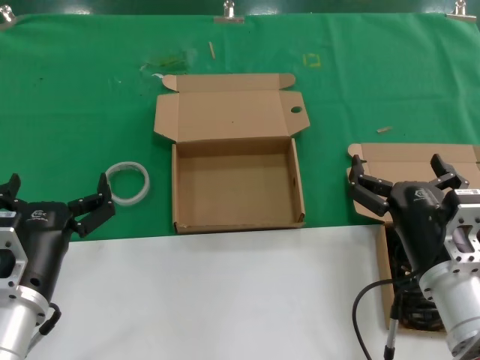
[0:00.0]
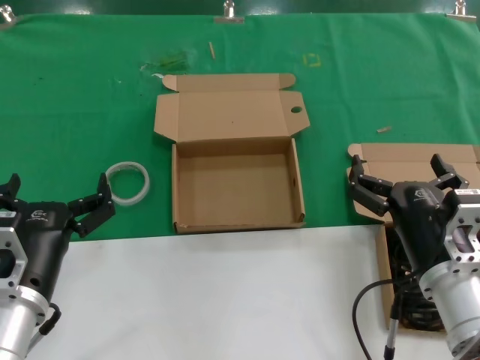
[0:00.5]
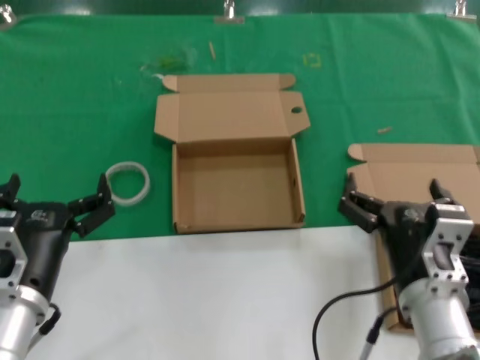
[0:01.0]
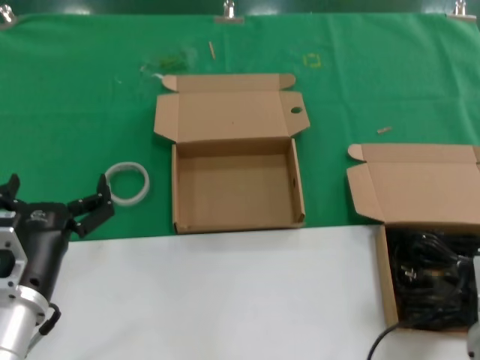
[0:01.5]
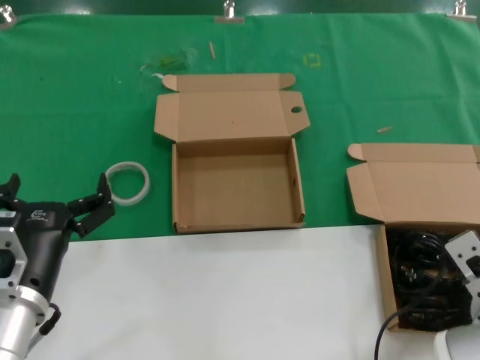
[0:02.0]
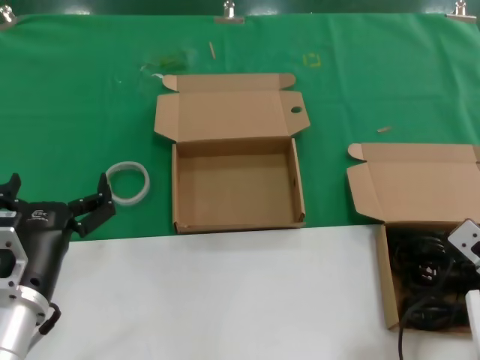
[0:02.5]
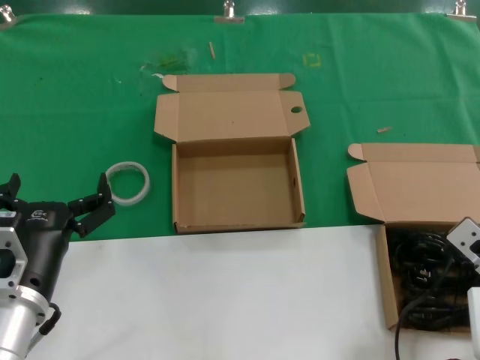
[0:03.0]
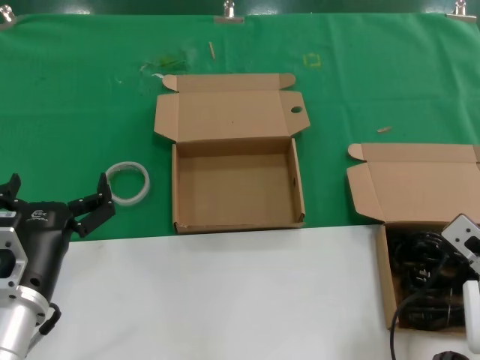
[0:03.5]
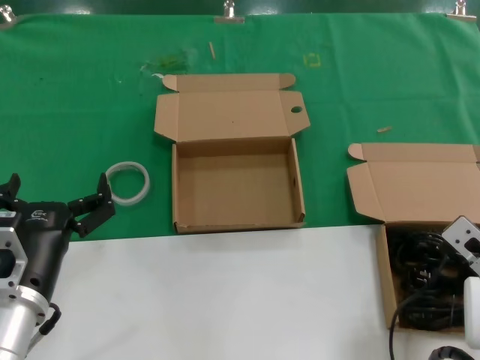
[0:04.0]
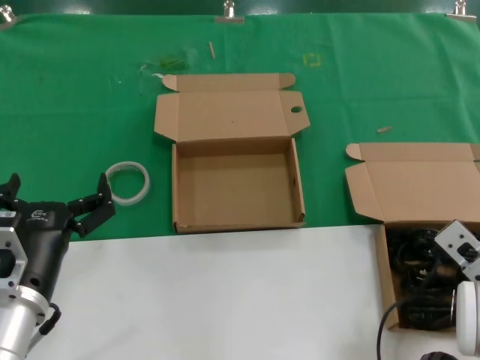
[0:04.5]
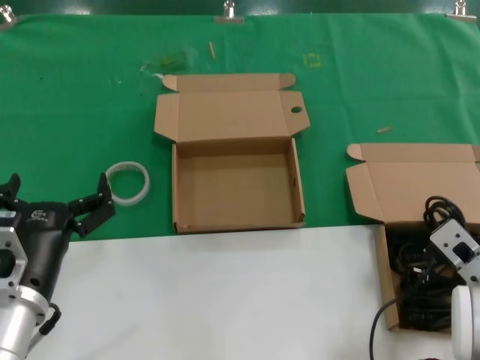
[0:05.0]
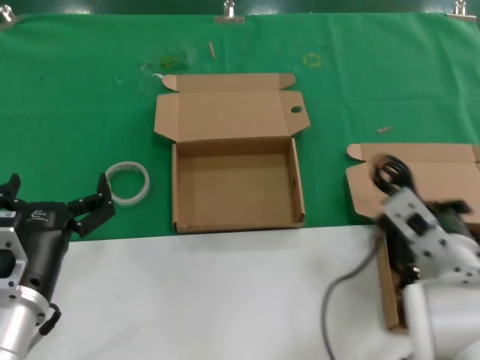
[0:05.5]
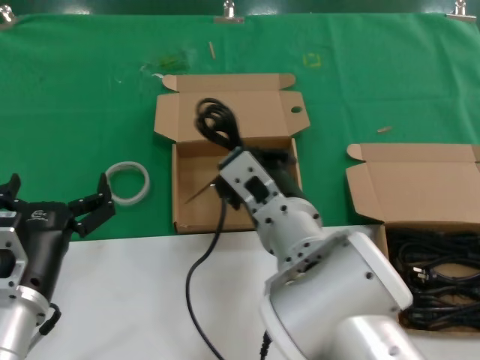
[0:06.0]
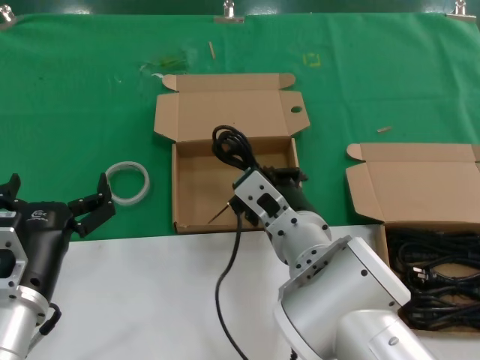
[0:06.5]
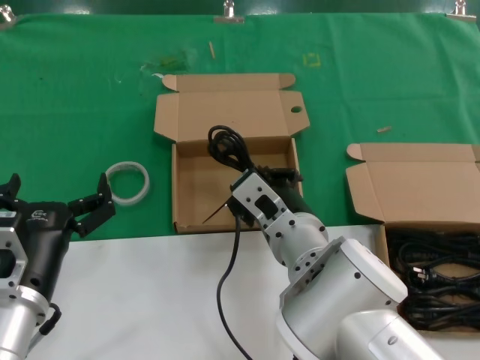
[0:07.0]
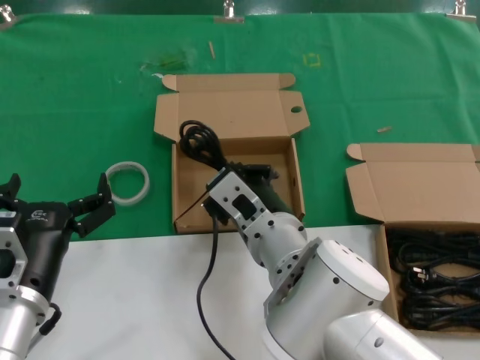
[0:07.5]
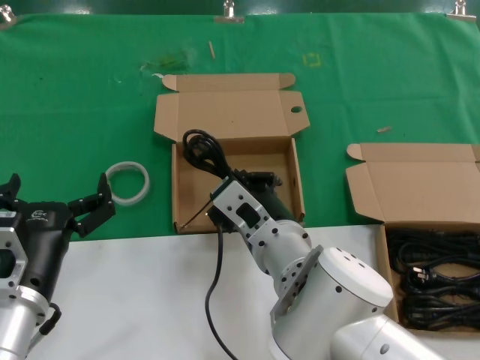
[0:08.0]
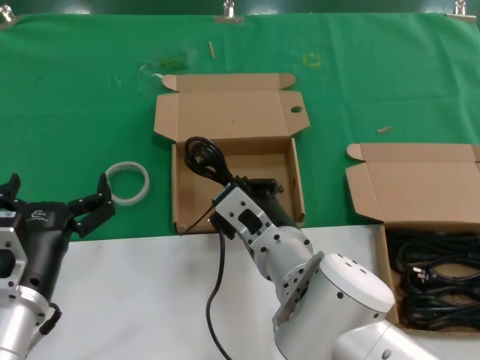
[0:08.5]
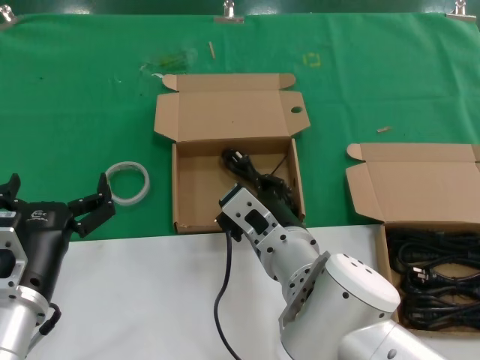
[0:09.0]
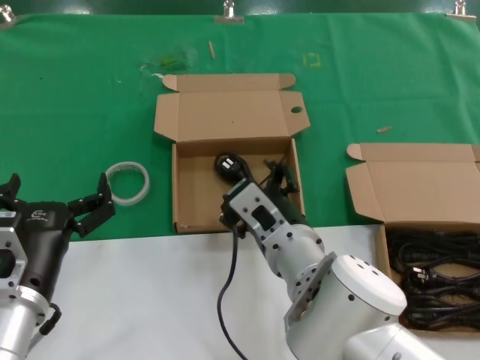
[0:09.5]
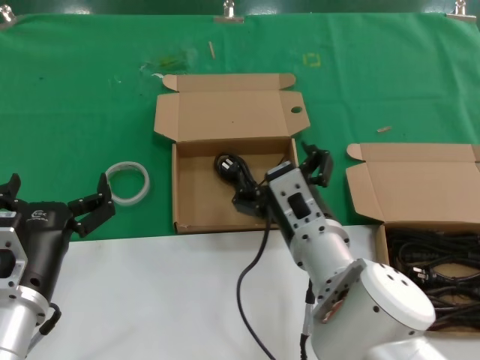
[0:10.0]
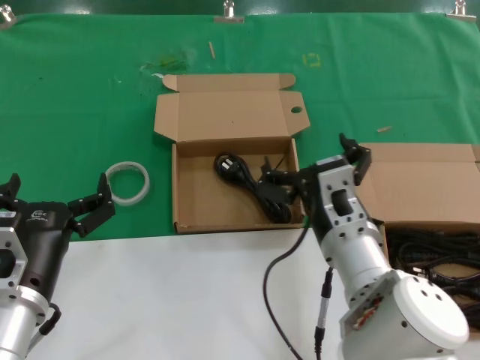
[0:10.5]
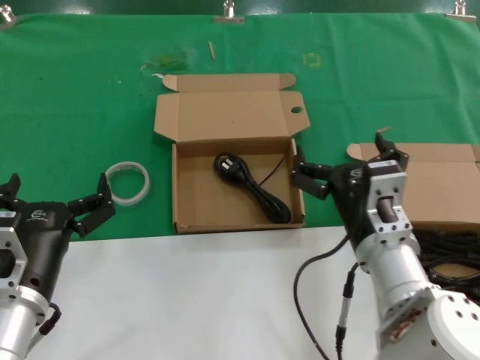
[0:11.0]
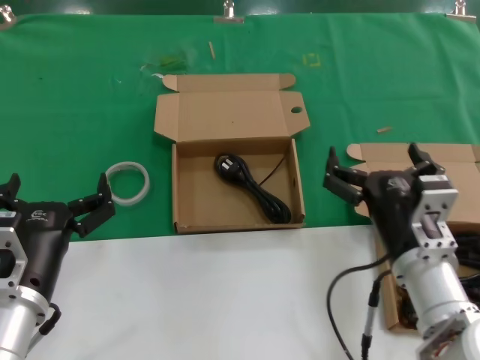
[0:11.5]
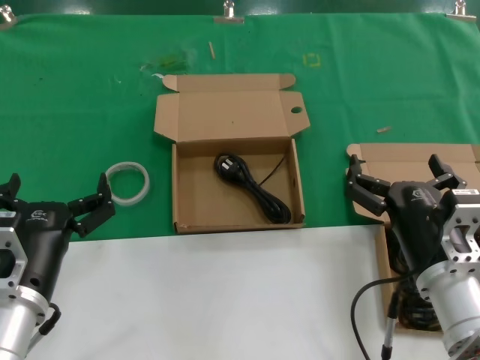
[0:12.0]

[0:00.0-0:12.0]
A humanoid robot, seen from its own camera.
Task of the whole recording: take the parts from the box containing them and put them into an empty box.
Step, 0:00.0 to 0:04.5: Grasp the data cable.
Step, 0:05.5 to 0:09.5: Place the data cable in the another box.
0:02.0 to 0:04.0: The right hand shifts by some 5 cm.
0:04.0 to 0:06.0: The right hand travels to the left by about 25 cm.
0:06.0 to 0:08.0: The hands make only small movements.
0:08.0 to 0:10.0: The hands make only small movements.
0:10.0 to 0:12.0: The right hand is displaced to the right by approximately 15 cm.

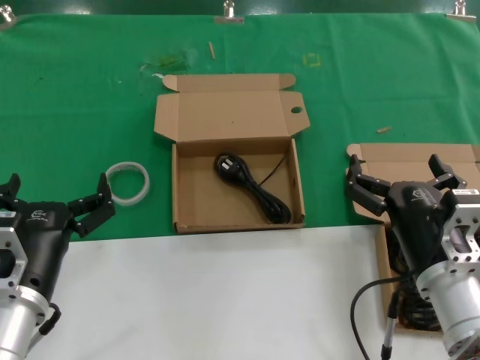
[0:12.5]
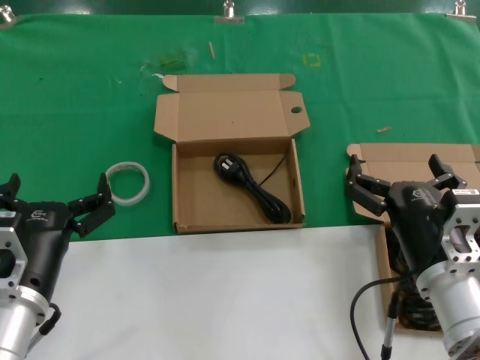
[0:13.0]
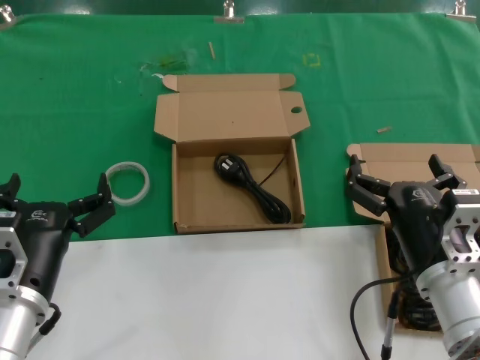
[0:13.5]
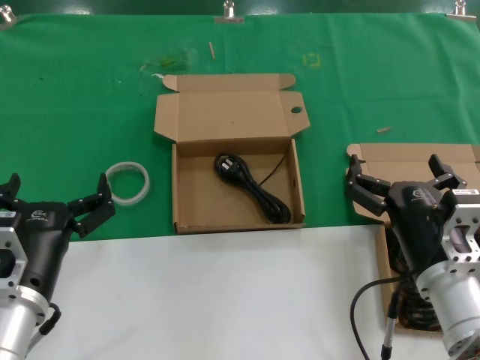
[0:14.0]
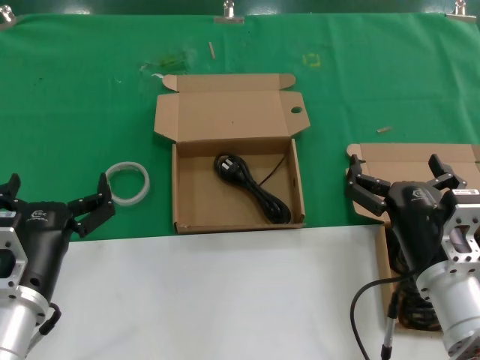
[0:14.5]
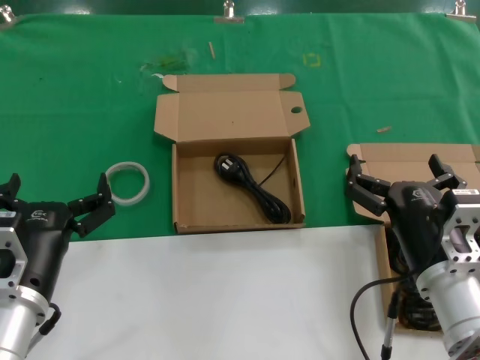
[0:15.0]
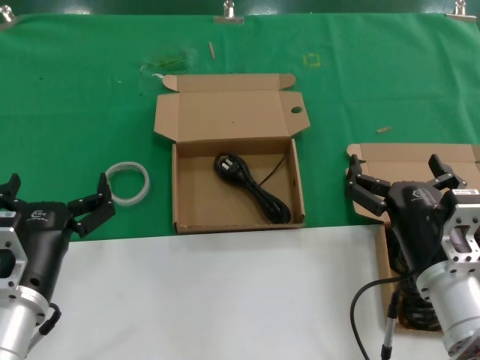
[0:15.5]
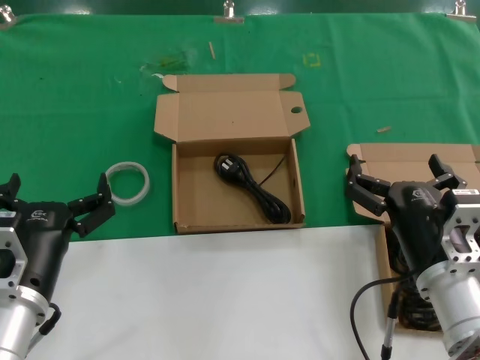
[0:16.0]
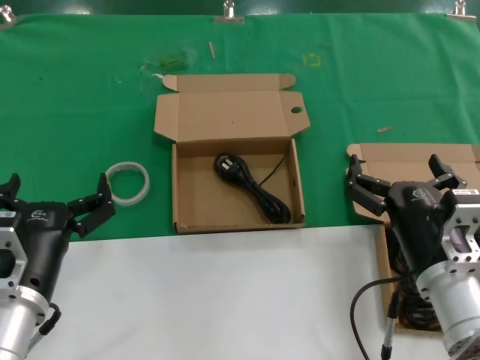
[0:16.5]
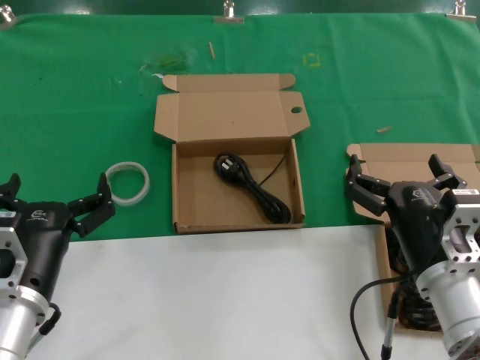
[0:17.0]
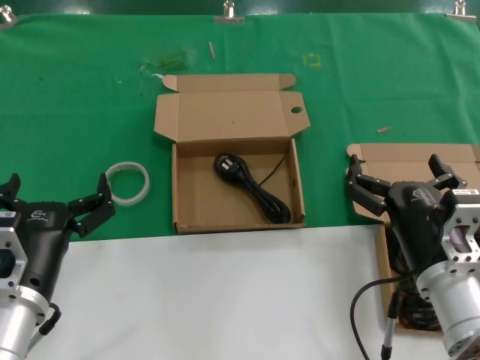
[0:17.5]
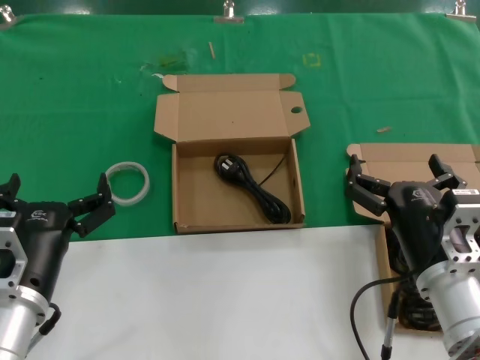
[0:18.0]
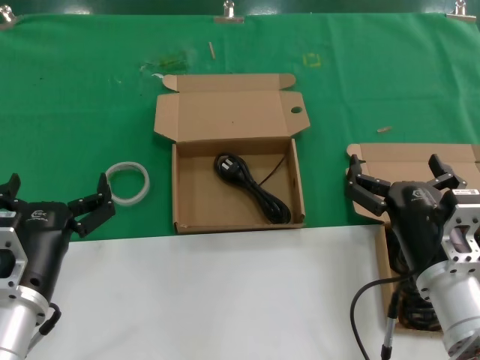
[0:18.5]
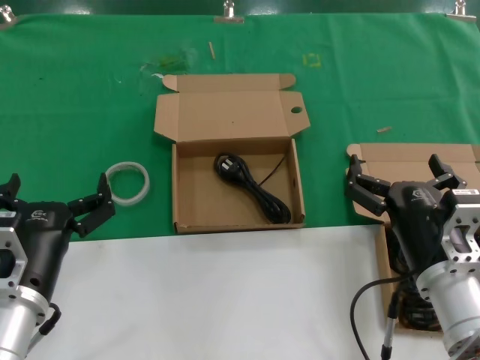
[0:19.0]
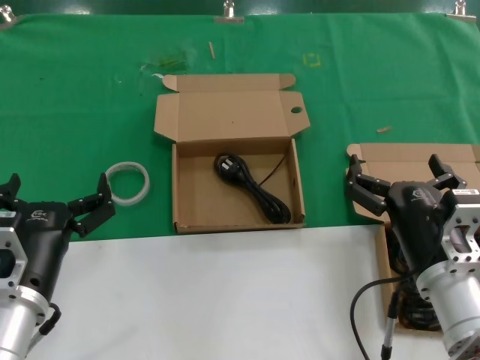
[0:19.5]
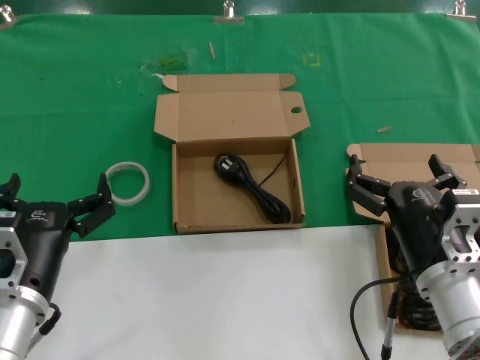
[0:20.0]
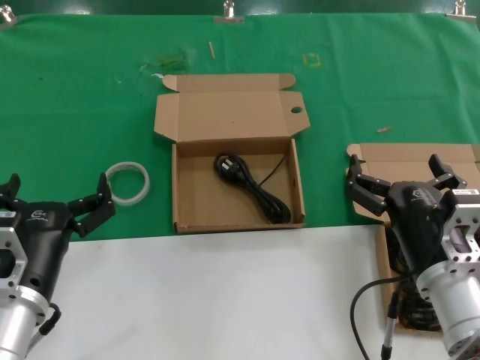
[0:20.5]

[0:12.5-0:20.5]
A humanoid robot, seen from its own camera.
Task of the whole recording: take the parts from the box containing them and put them into an empty box.
0:12.5 to 0:20.5: Neither hand changes place.

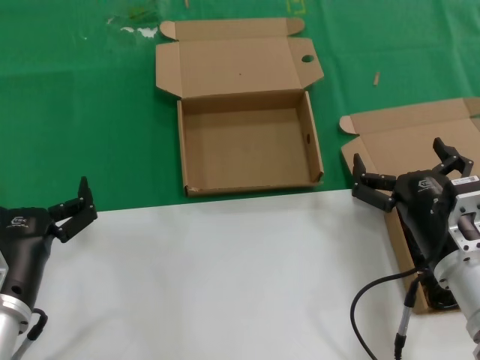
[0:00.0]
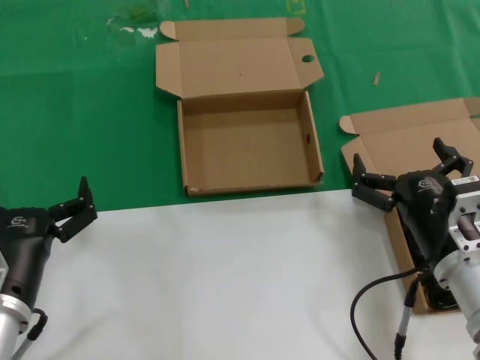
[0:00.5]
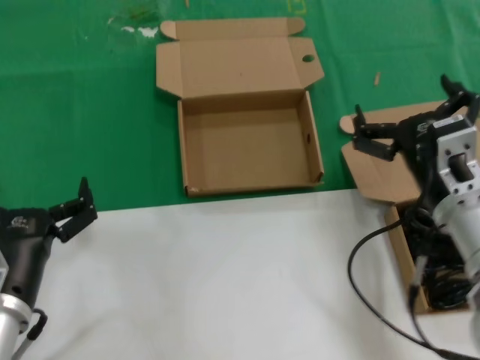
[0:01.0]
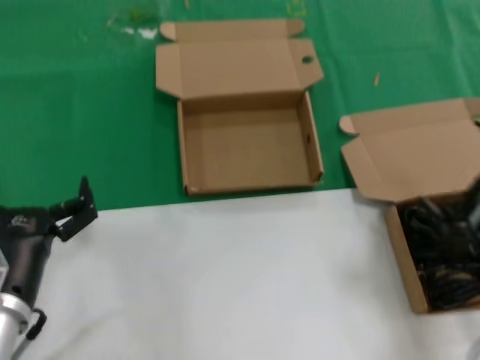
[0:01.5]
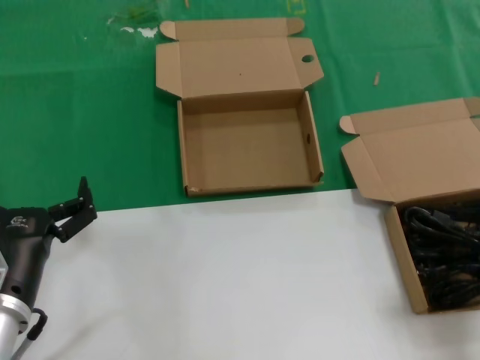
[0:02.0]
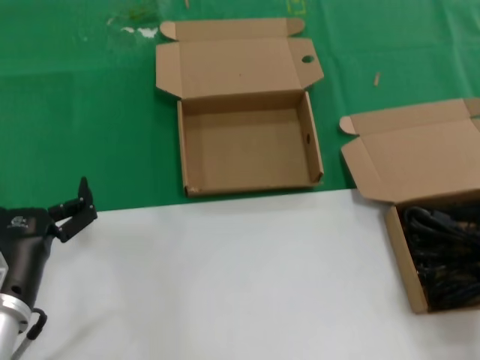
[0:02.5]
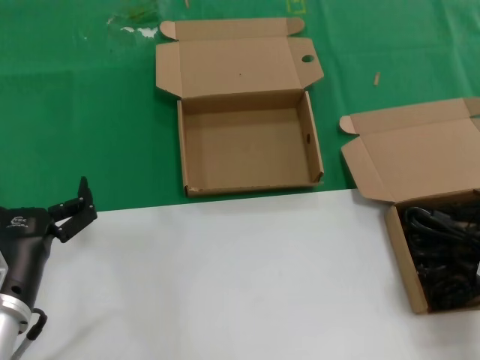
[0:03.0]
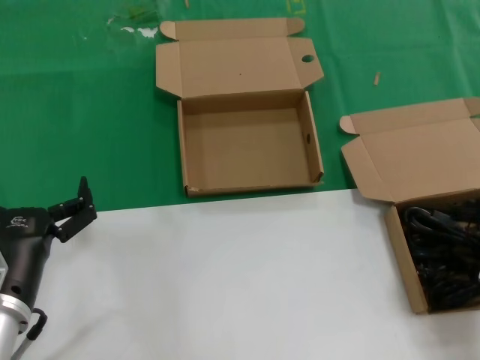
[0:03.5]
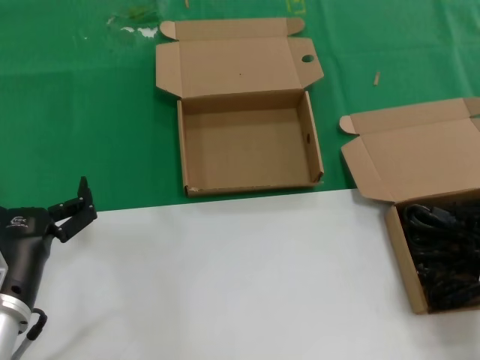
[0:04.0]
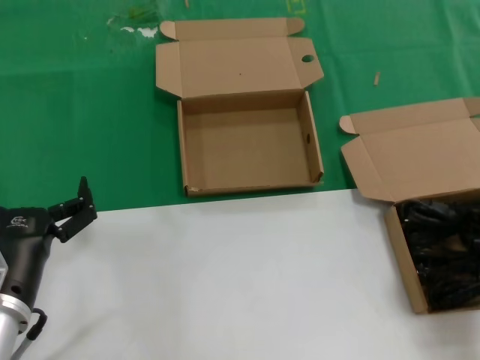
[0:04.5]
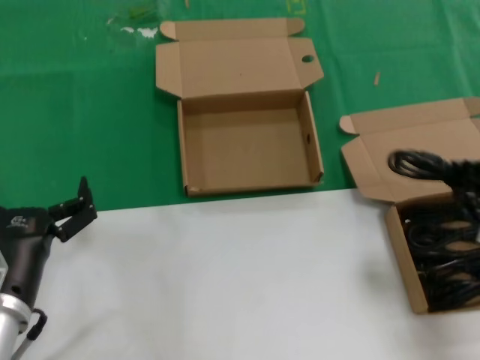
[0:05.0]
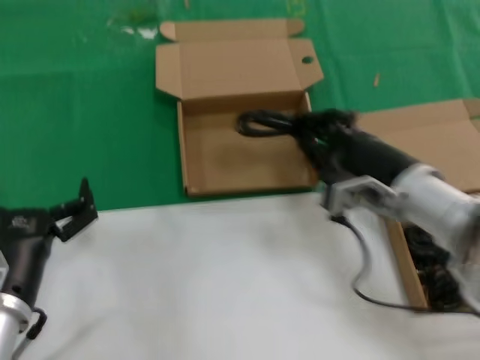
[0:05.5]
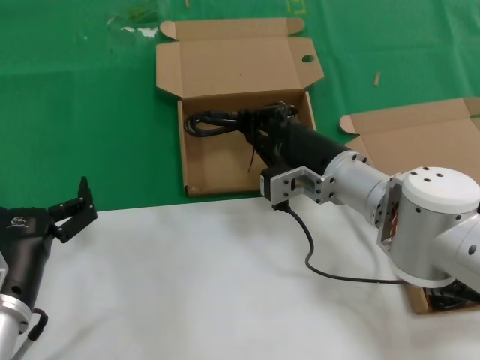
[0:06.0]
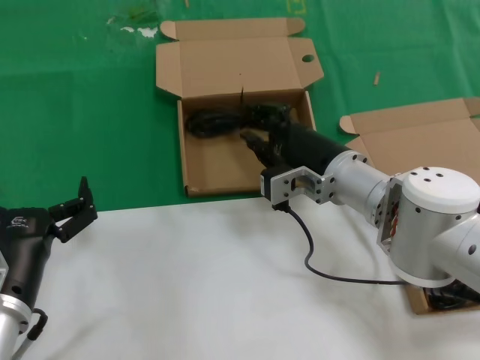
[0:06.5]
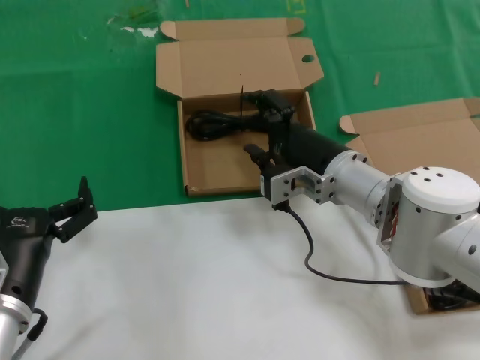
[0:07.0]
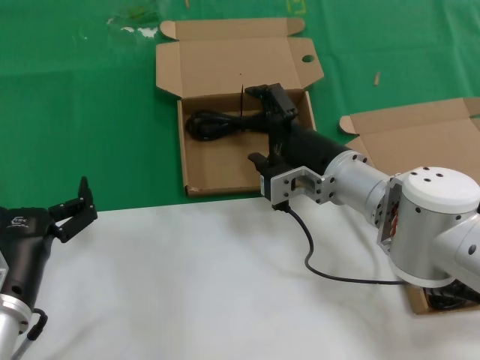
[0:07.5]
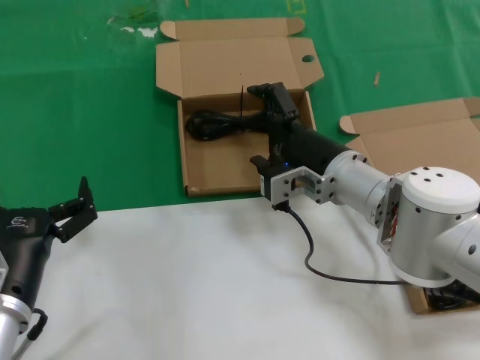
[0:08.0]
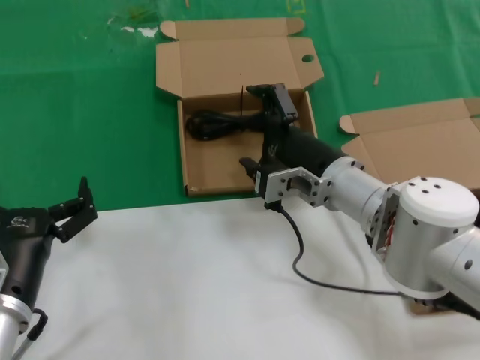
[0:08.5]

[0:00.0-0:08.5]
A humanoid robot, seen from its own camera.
Task of the whole recording: take the parts from the box containing them and put them into an empty box.
Step, 0:00.0 to 0:04.0: Grasp the data cable.
0:00.0 to 0:02.0: The right hand is displaced to the right, upward and backward by some 15 cm.
0:04.0 to 0:06.5: The right hand heads to the left and forward, covering roughly 30 cm.
0:06.5 to 0:08.5: The hands make only small movements.
